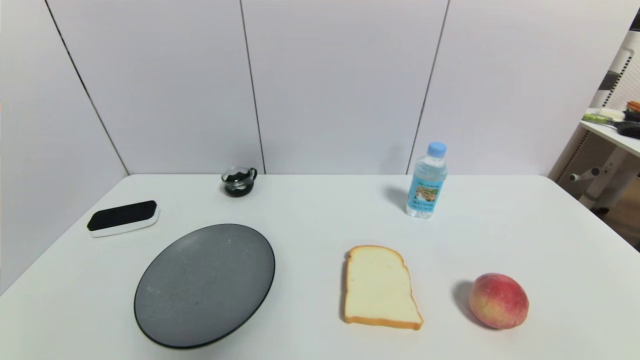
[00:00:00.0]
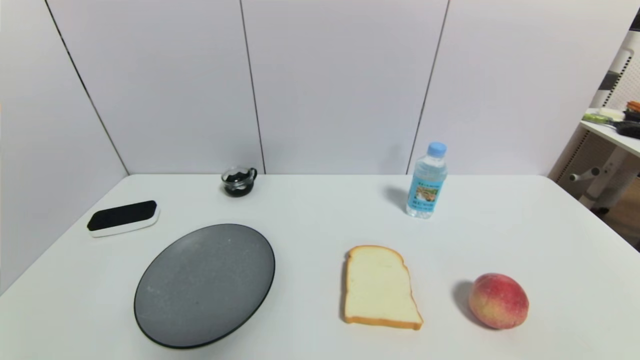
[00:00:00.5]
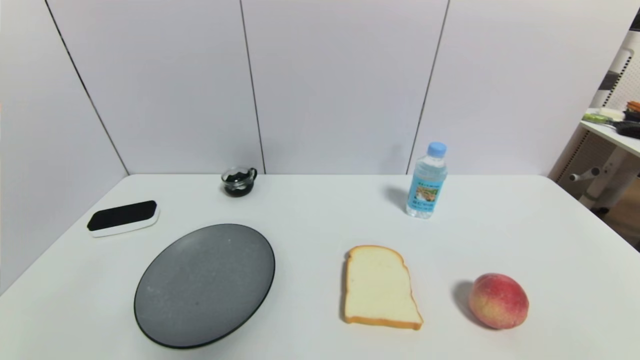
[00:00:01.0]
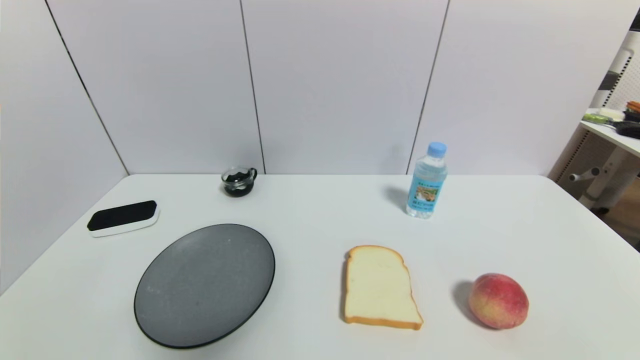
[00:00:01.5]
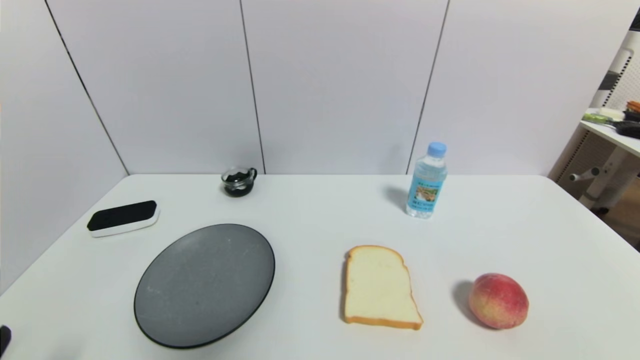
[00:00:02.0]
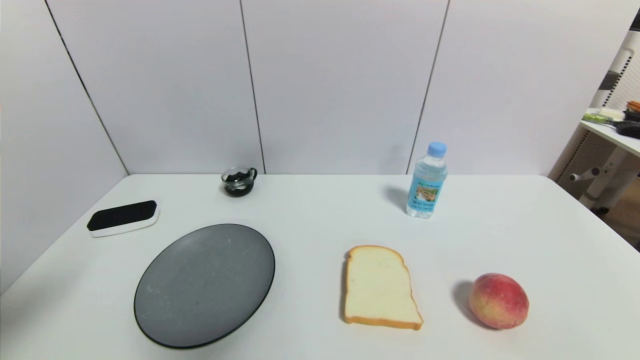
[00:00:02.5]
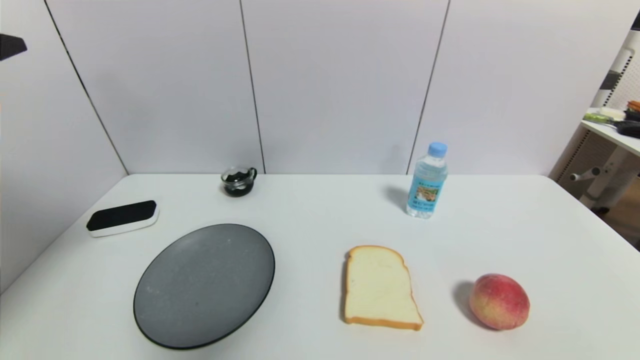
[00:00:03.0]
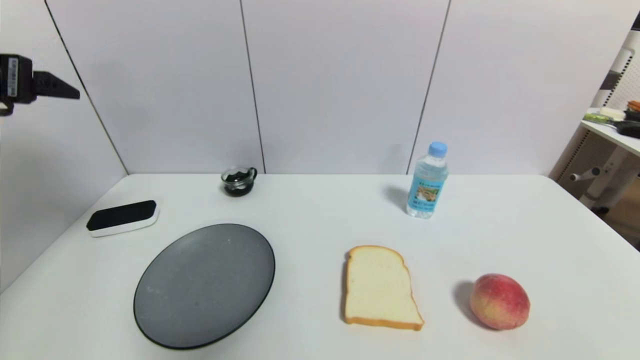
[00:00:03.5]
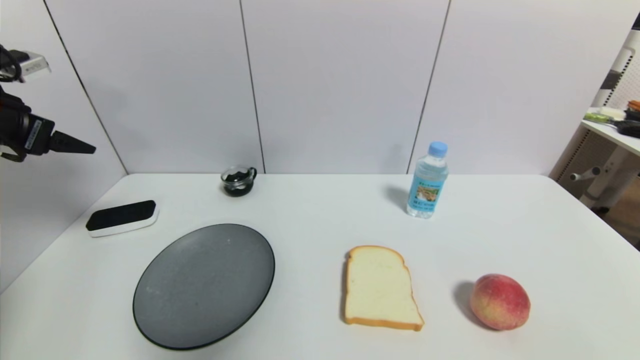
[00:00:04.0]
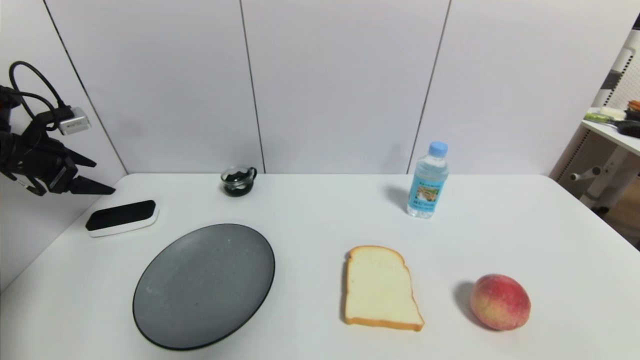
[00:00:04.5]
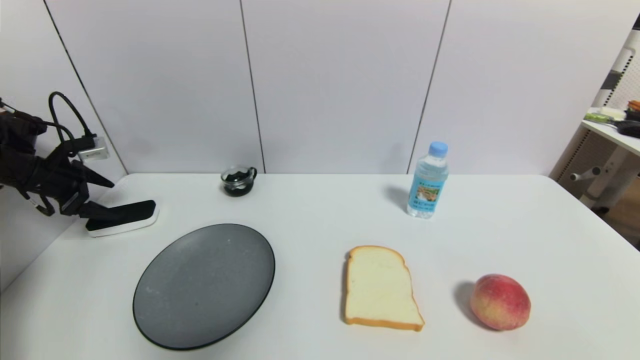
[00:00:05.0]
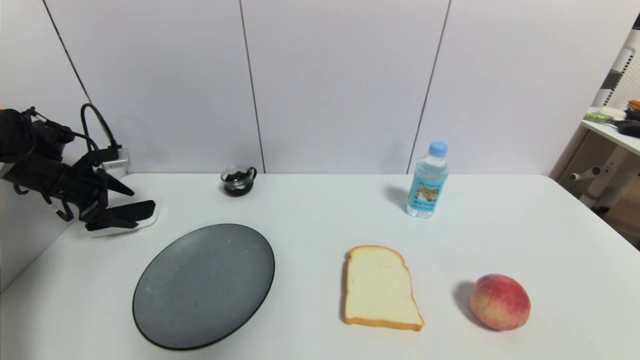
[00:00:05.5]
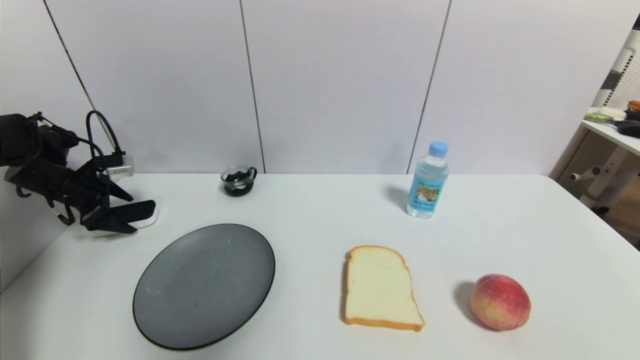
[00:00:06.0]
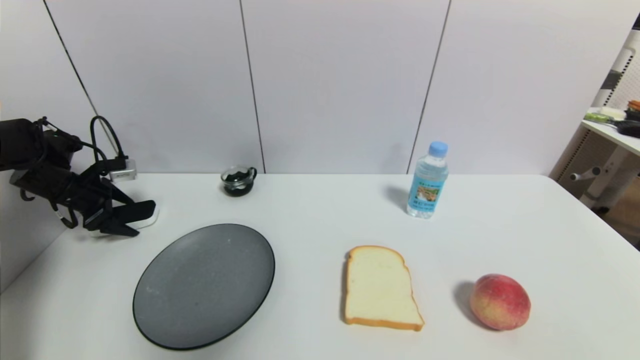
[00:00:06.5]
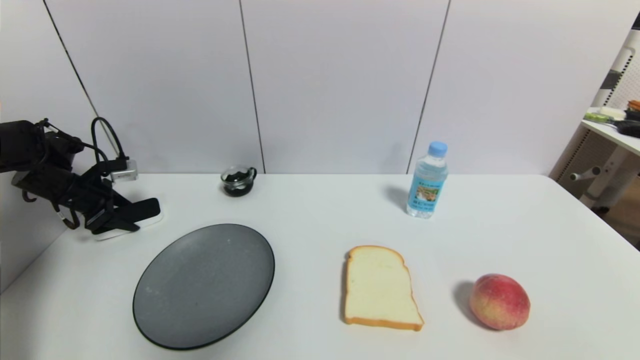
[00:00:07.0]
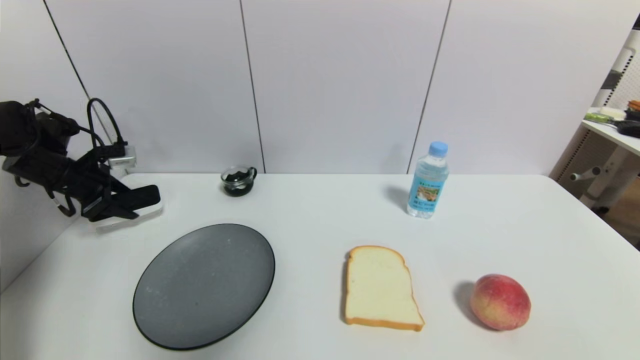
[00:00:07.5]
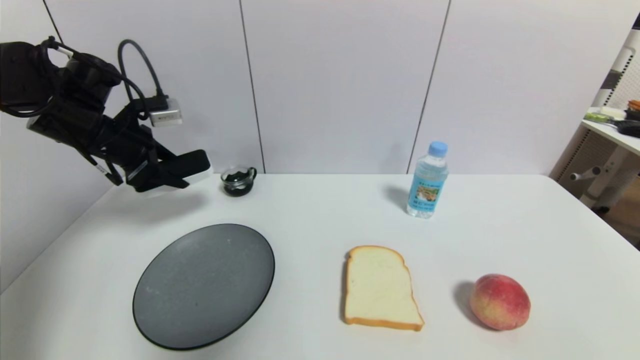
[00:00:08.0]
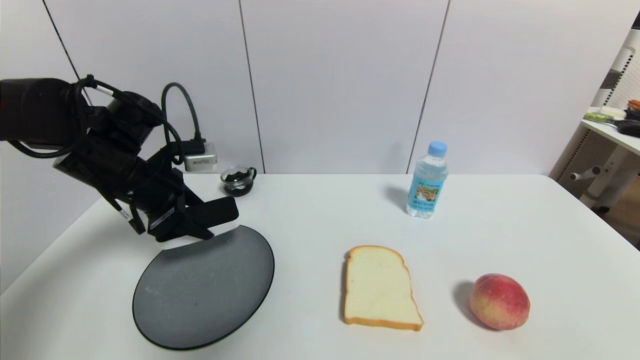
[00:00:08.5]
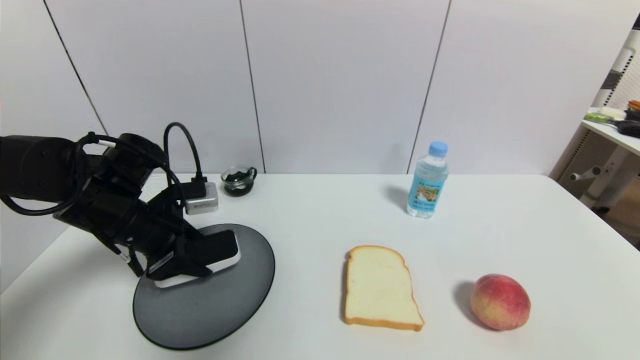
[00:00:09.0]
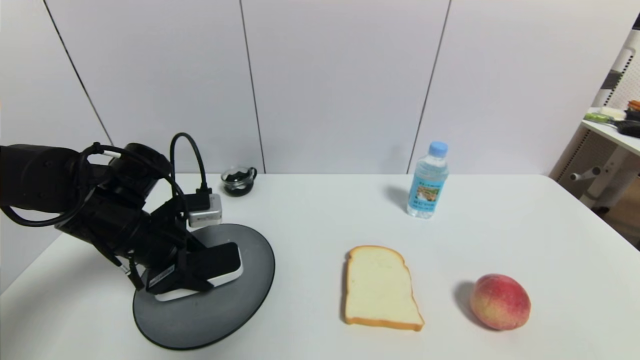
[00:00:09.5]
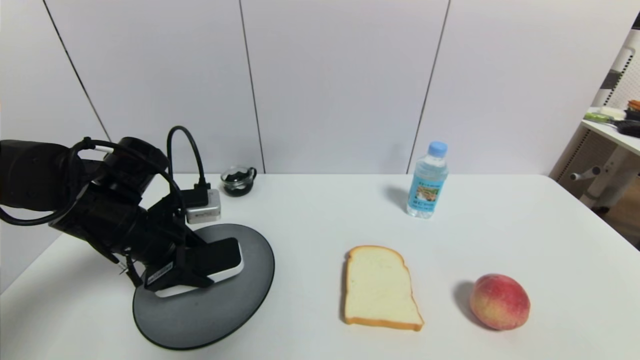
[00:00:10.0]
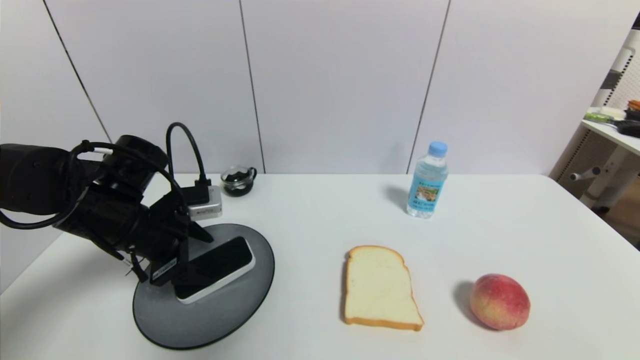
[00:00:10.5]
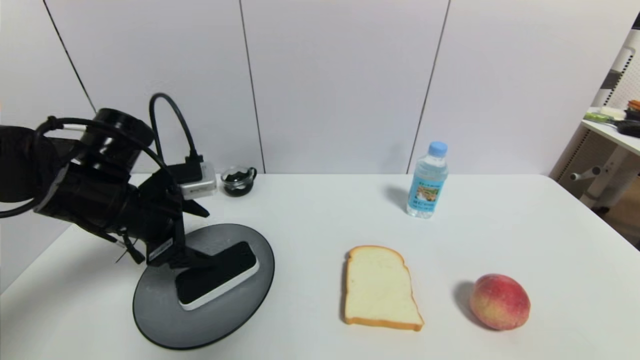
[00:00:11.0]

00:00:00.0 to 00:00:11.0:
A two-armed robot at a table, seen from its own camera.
Task of the whole recording: use a gripper to pick the target object and place on the gray plate.
Step, 00:00:00.0 to 00:00:07.0: Grasp the blackboard erasure with the left gripper.
Step, 00:00:07.5 to 00:00:10.5: Place the blackboard erasure on the gray plate with the left gripper.
00:00:02.0 to 00:00:03.5: The left gripper heads forward and upward, covering about 35 cm.
00:00:03.5 to 00:00:05.5: The left gripper is displaced downward, forward and to the left by about 25 cm.
00:00:05.5 to 00:00:07.5: The left gripper closes.
00:00:07.5 to 00:00:09.0: The left gripper moves to the right and backward, roughly 20 cm.
00:00:09.0 to 00:00:11.0: The left gripper opens.

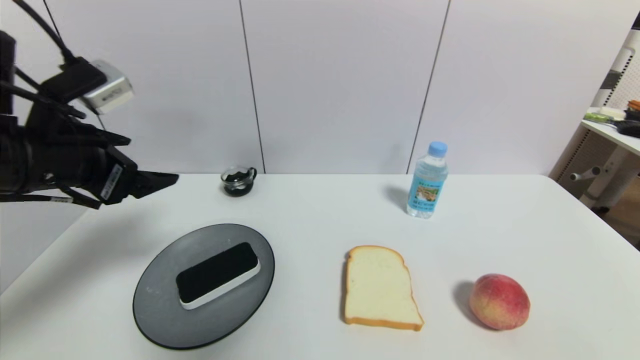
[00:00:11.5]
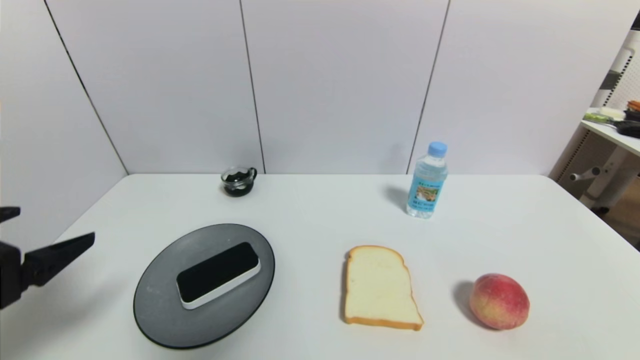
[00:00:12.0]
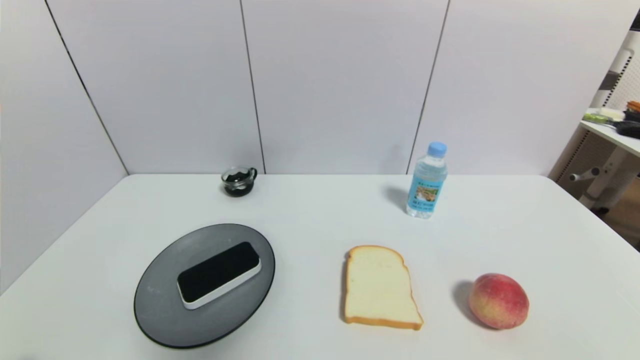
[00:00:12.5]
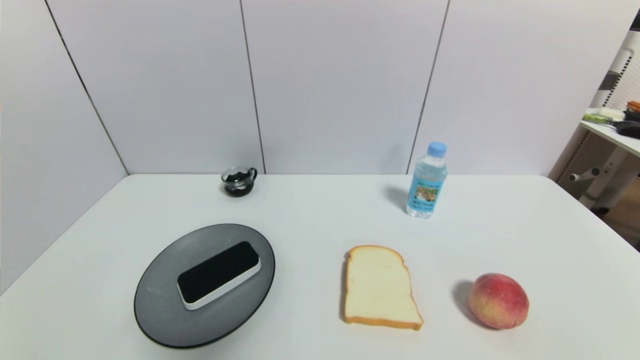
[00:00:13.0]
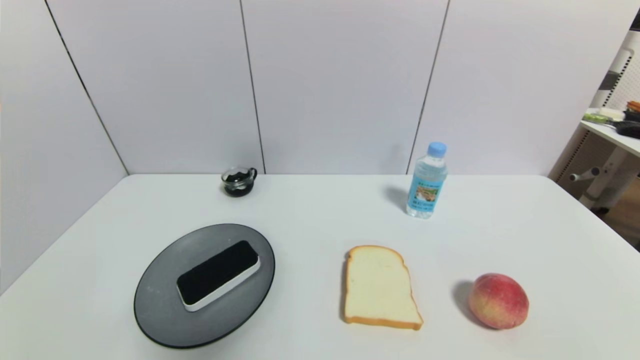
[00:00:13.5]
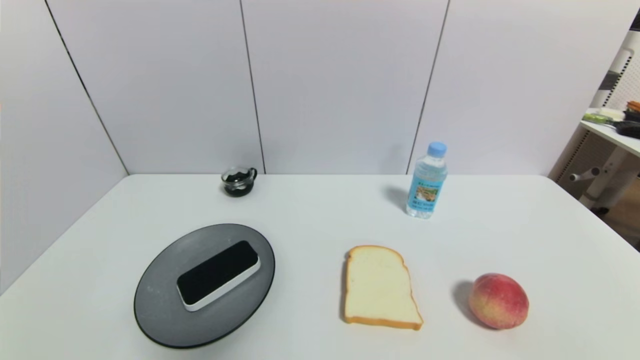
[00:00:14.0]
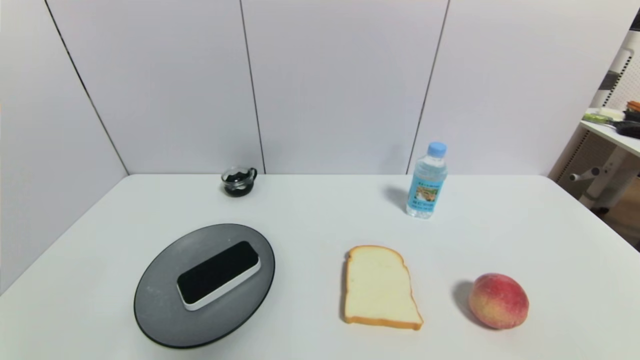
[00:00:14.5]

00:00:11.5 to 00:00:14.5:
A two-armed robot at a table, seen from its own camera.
Task of the whole recording: use a gripper to pick the target object and place on the gray plate.
00:00:11.5 to 00:00:13.0: The left gripper travels backward and downward by approximately 30 cm.
00:00:13.0 to 00:00:14.5: Both grippers stay put.
